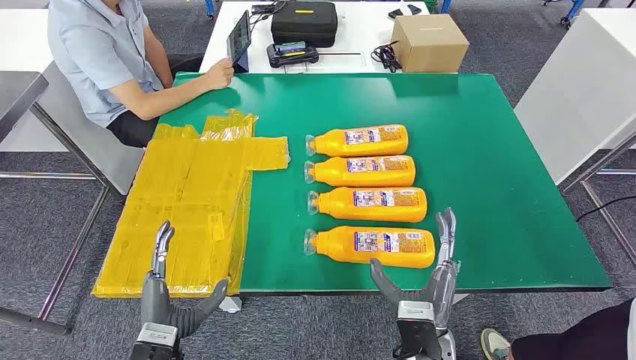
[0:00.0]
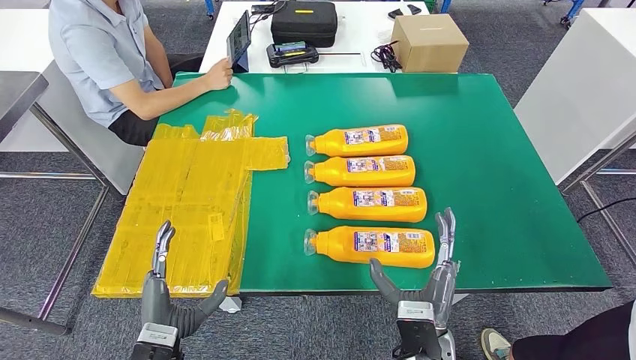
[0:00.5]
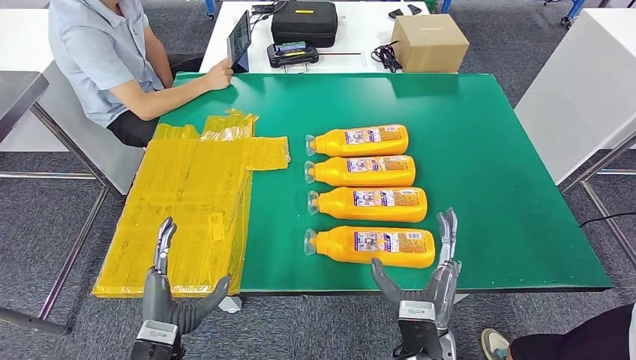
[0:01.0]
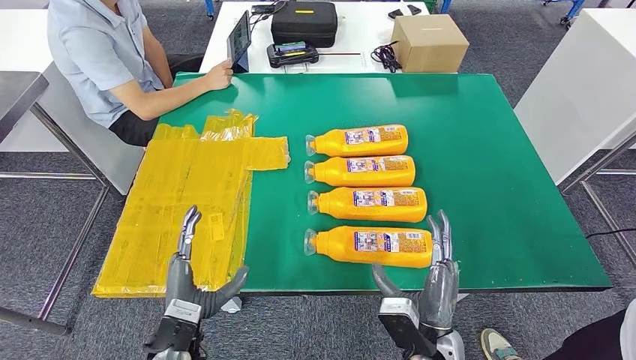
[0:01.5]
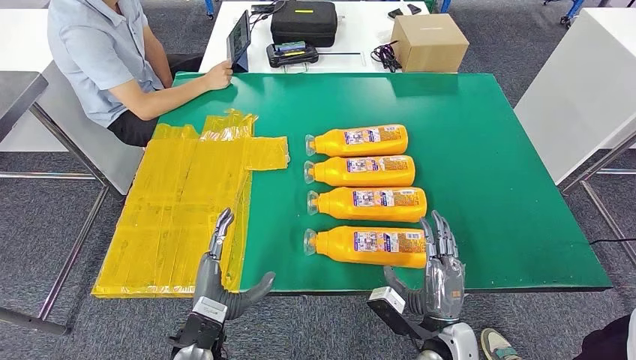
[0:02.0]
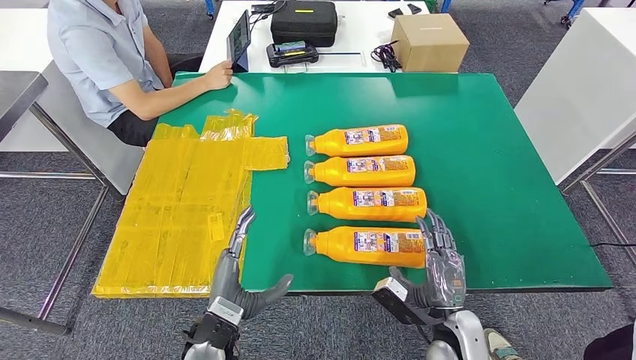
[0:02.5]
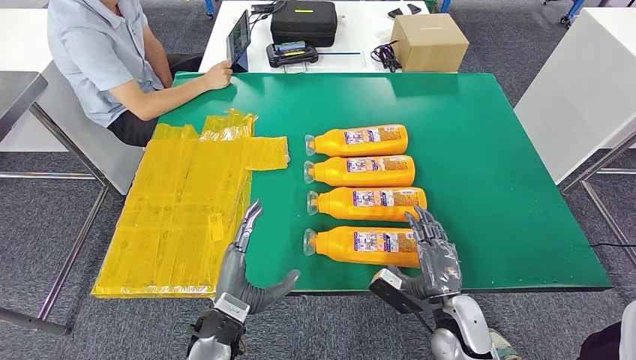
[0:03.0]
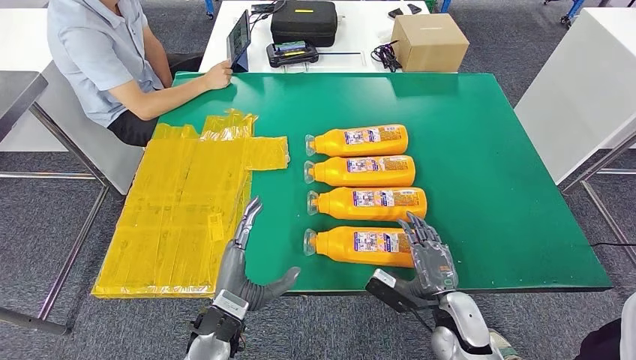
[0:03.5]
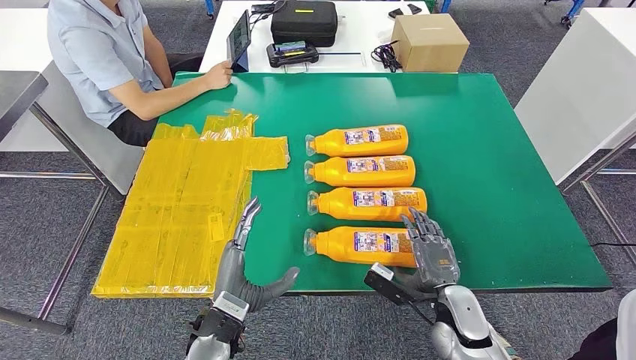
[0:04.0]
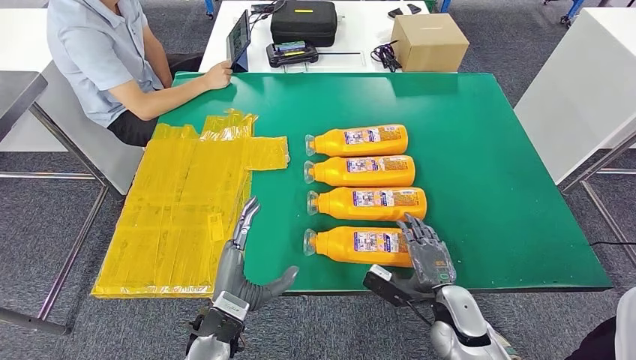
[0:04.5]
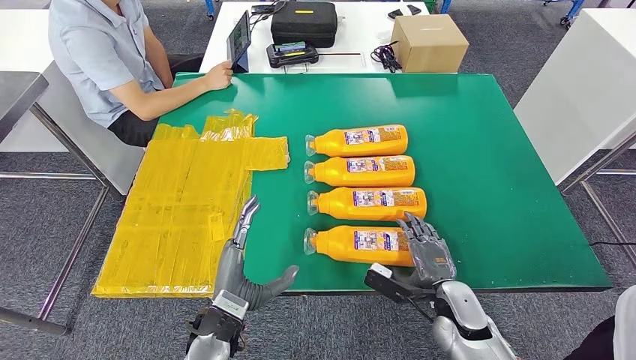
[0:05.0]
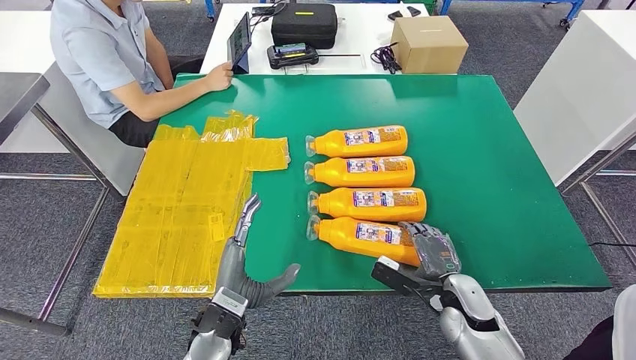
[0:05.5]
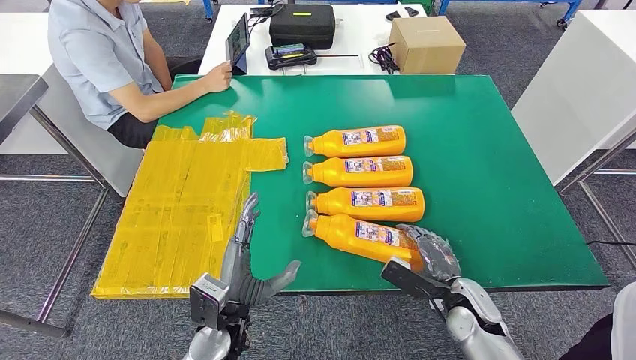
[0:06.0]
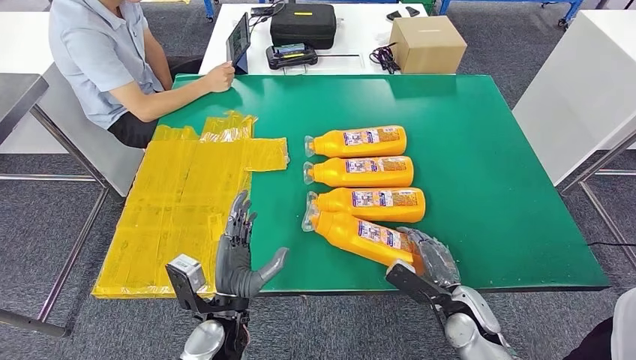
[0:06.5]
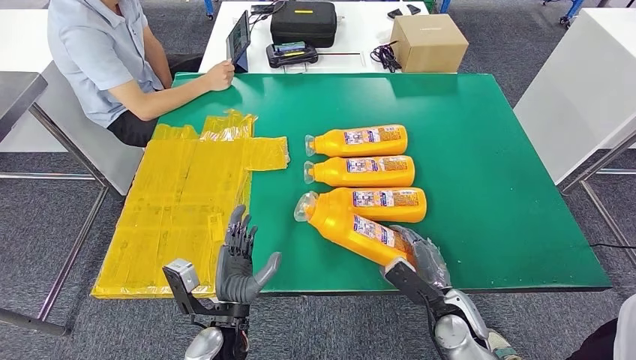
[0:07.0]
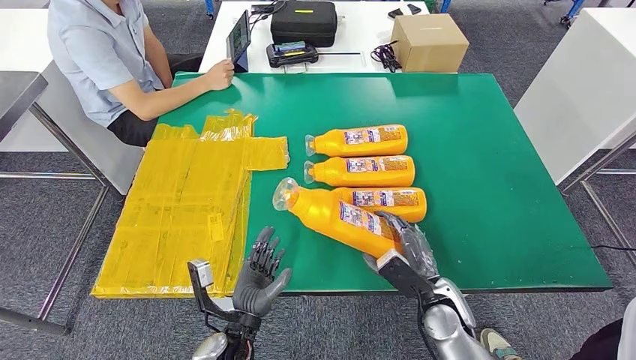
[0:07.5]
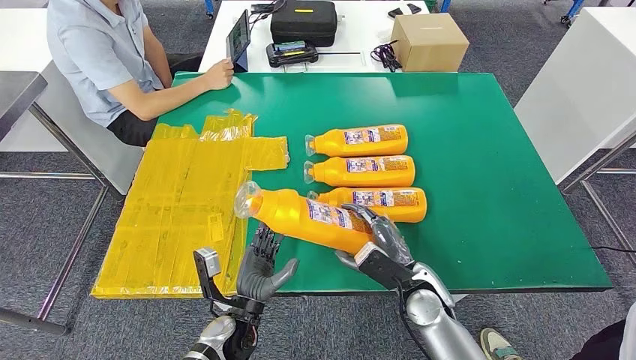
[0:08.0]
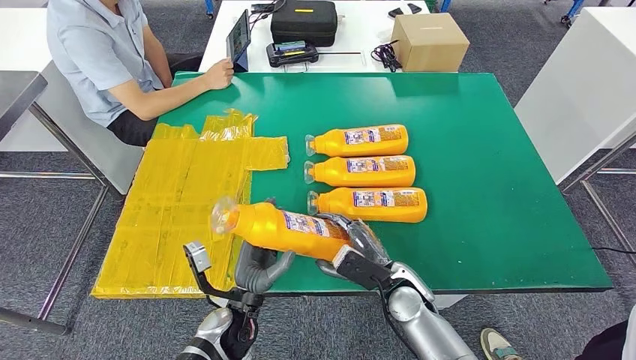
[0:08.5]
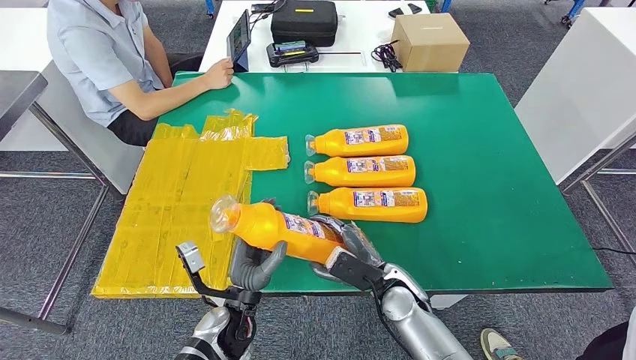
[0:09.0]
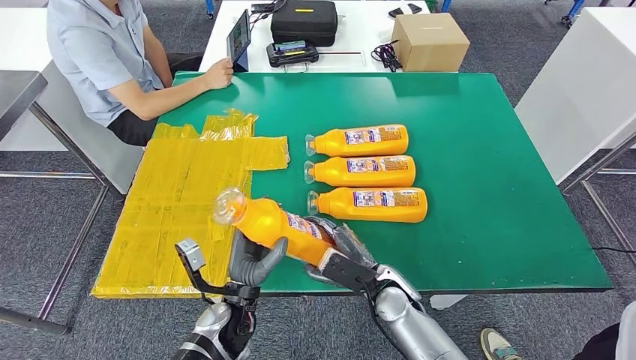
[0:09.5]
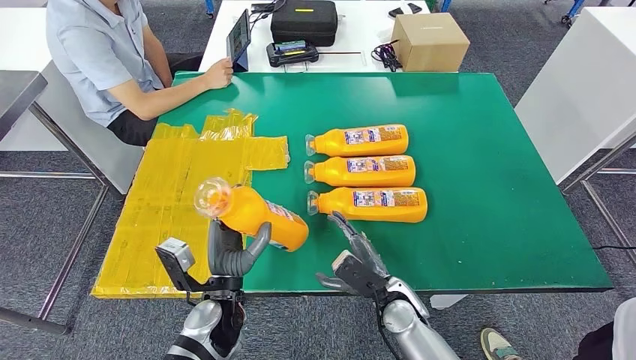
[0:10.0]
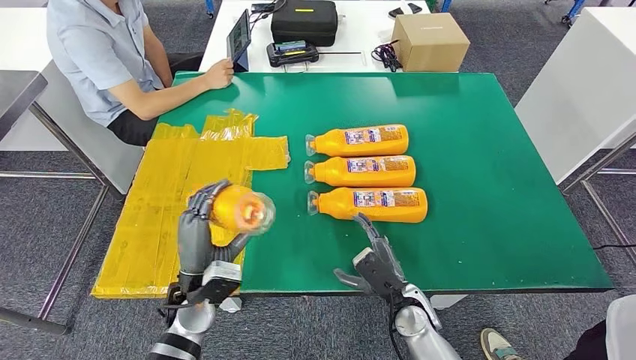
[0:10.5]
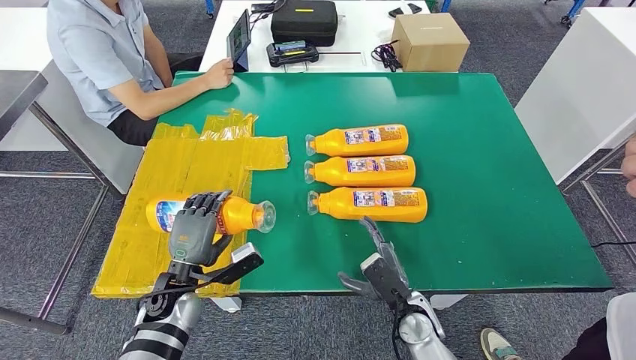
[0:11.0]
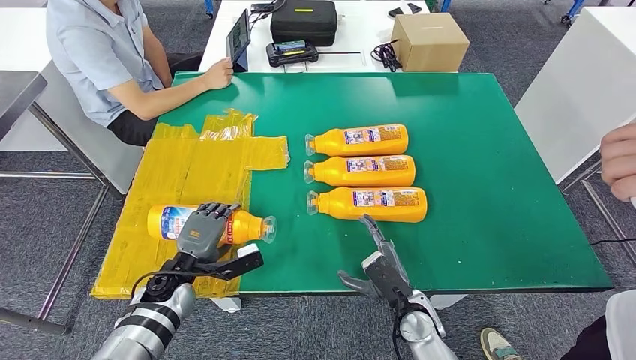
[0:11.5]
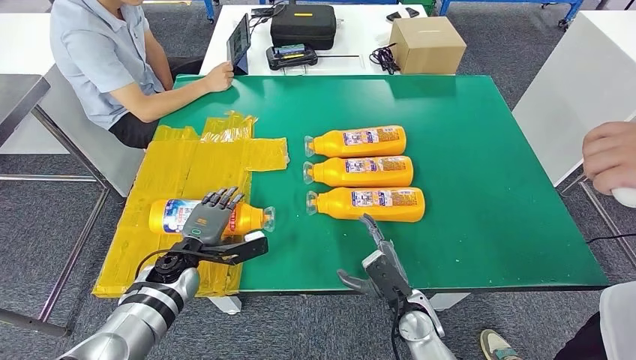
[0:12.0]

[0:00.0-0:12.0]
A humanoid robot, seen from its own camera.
Step, 0:00.0 to 0:09.0: Take the bottle from the table.
0:02.0 to 0:04.0: The right hand heads forward, covering some 5 cm.
0:06.0 to 0:08.0: The right hand is displaced to the left by roughly 10 cm; the left hand moves downward, some 5 cm.
0:08.0 to 0:10.0: The left hand moves upward, about 5 cm. The right hand moves some 5 cm.

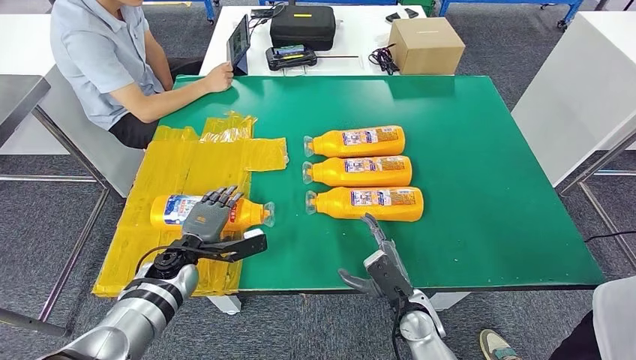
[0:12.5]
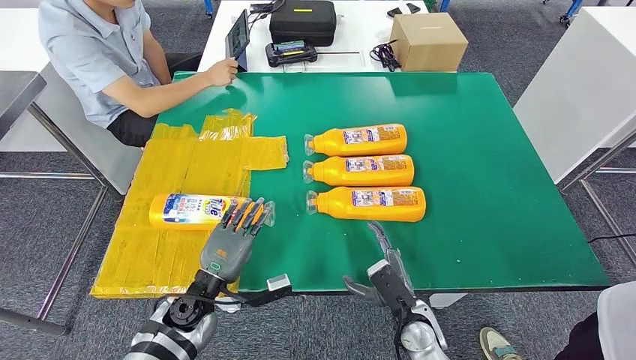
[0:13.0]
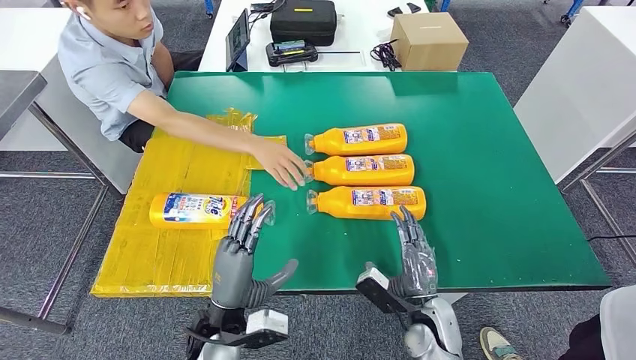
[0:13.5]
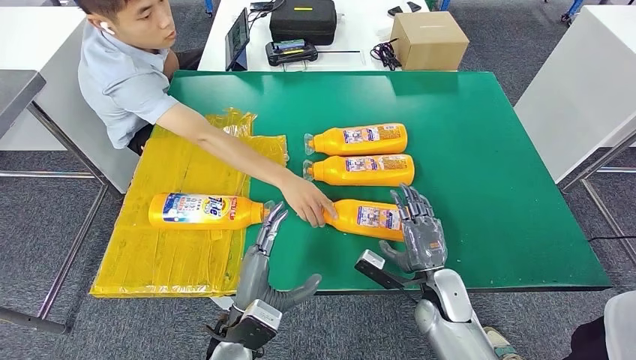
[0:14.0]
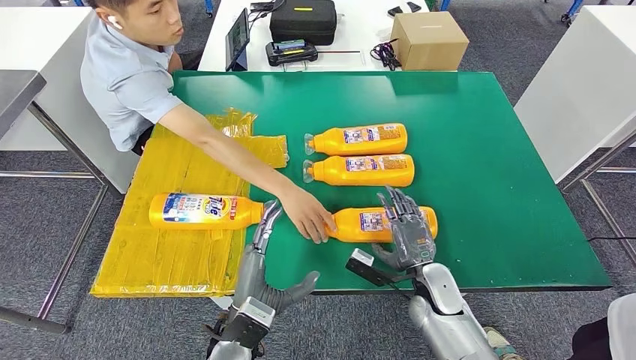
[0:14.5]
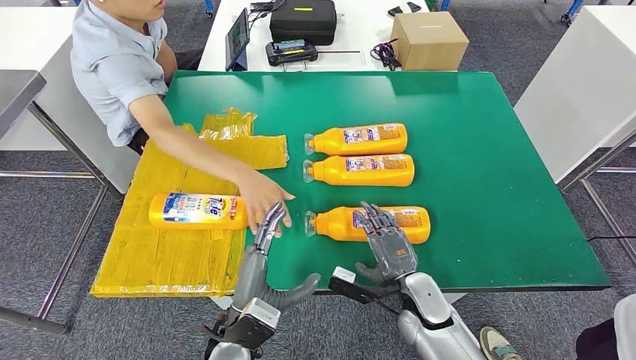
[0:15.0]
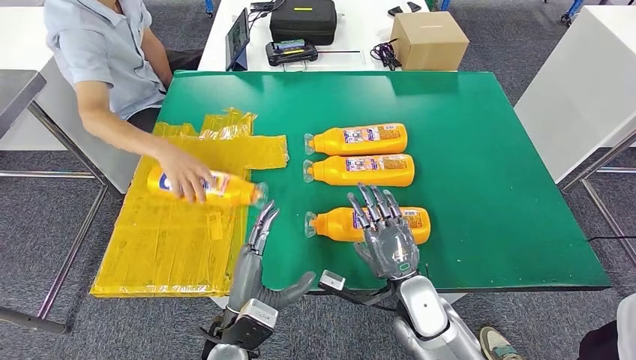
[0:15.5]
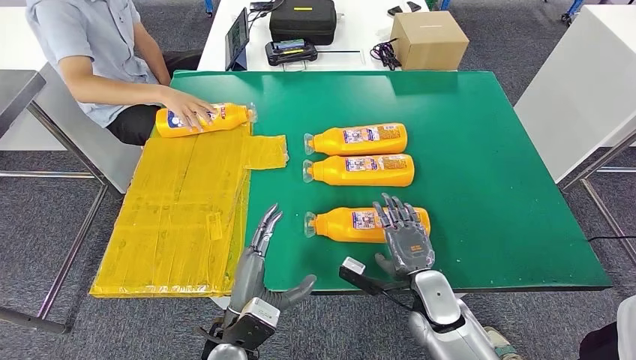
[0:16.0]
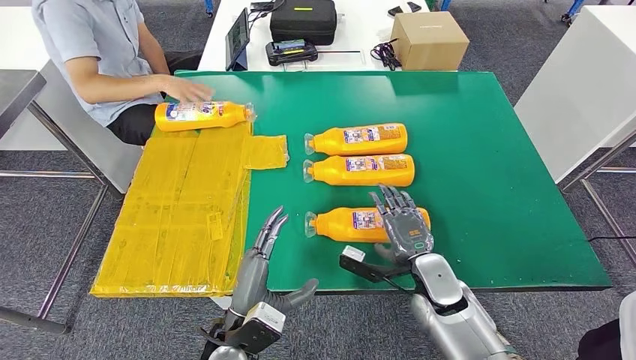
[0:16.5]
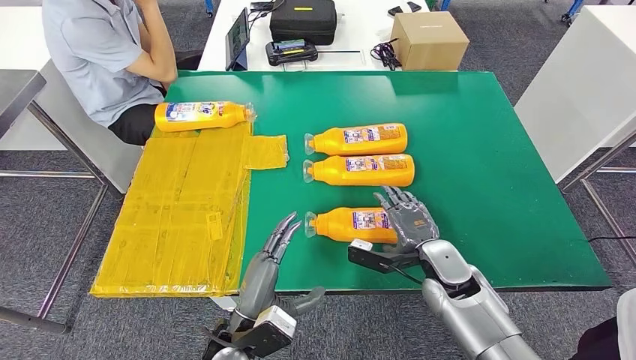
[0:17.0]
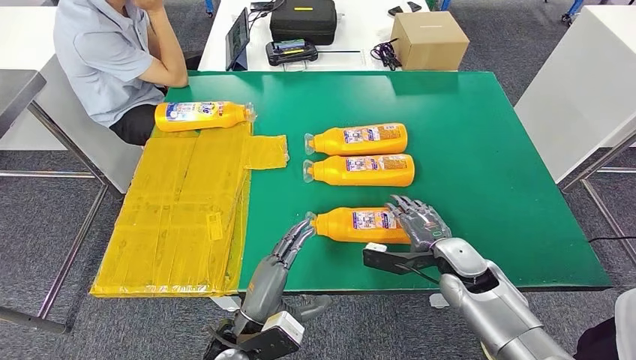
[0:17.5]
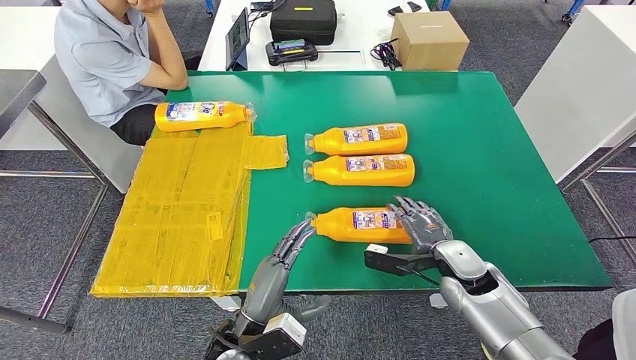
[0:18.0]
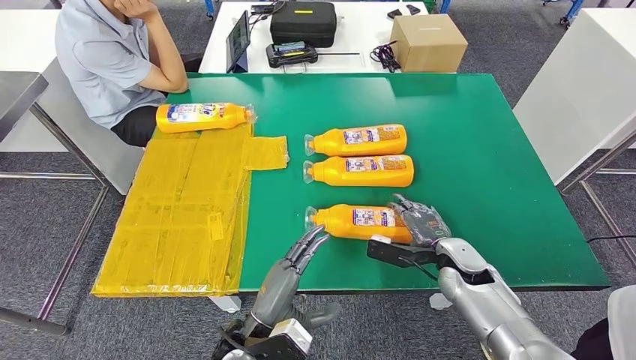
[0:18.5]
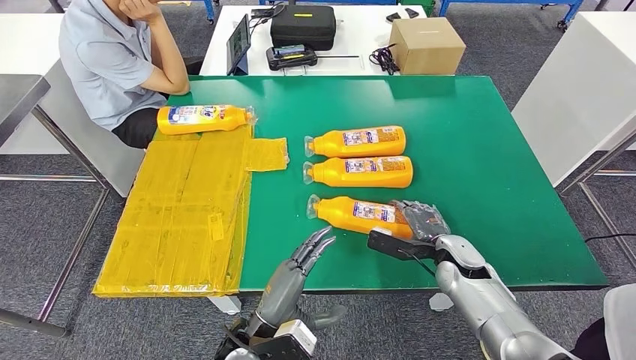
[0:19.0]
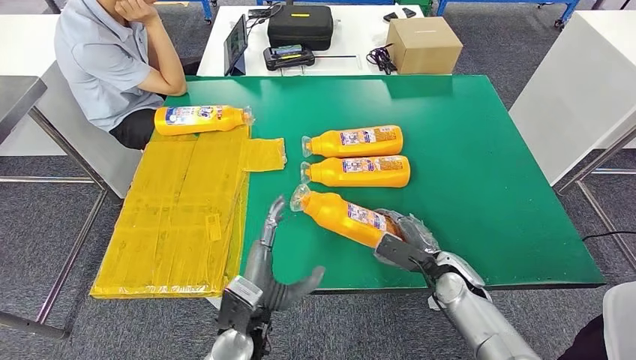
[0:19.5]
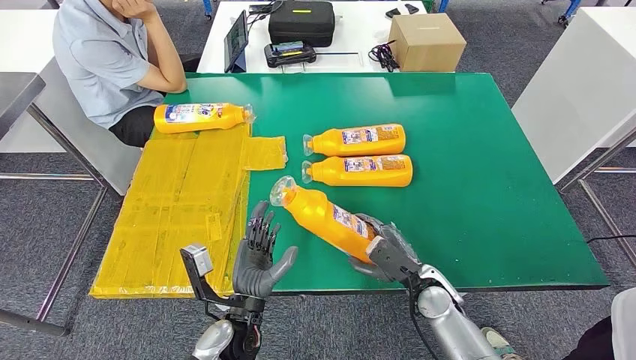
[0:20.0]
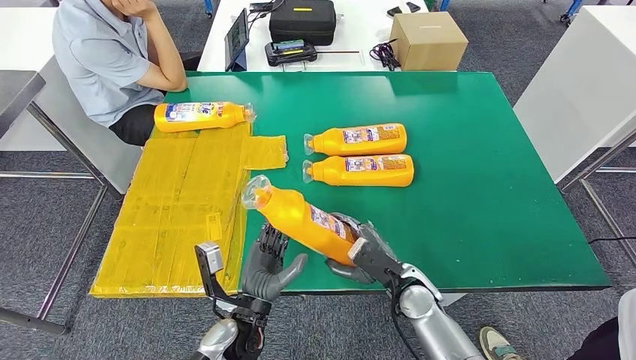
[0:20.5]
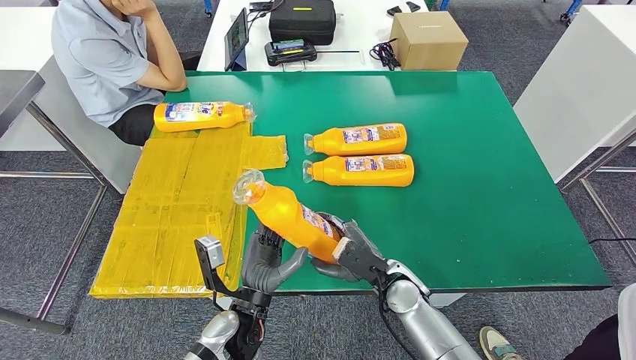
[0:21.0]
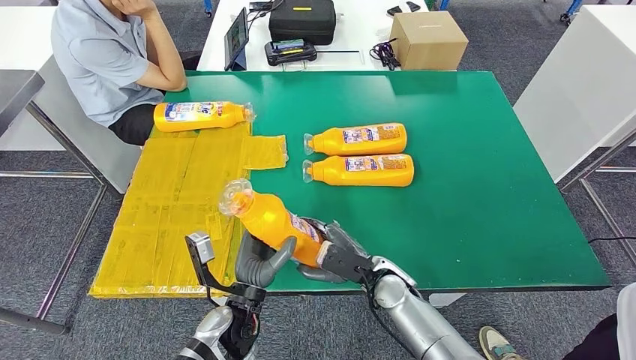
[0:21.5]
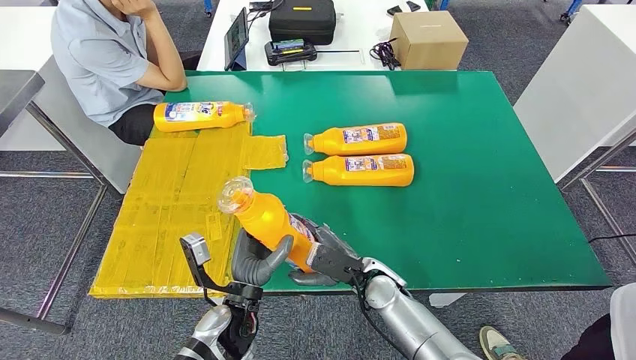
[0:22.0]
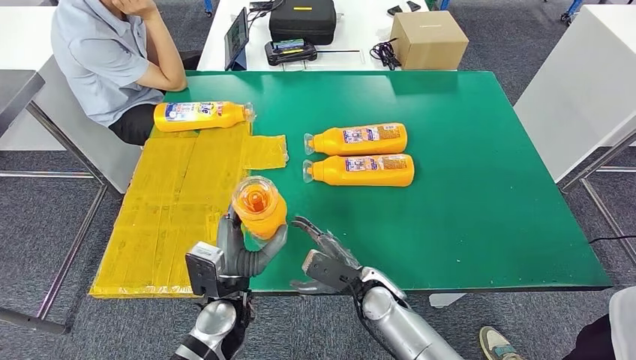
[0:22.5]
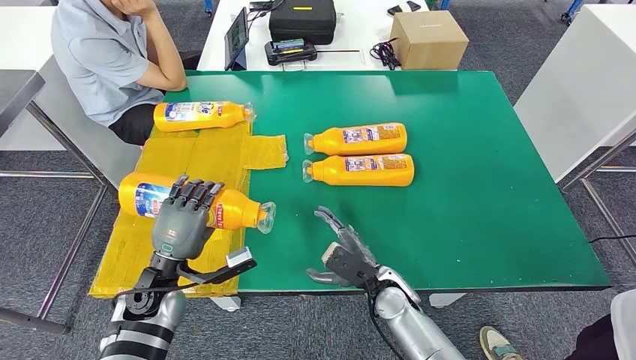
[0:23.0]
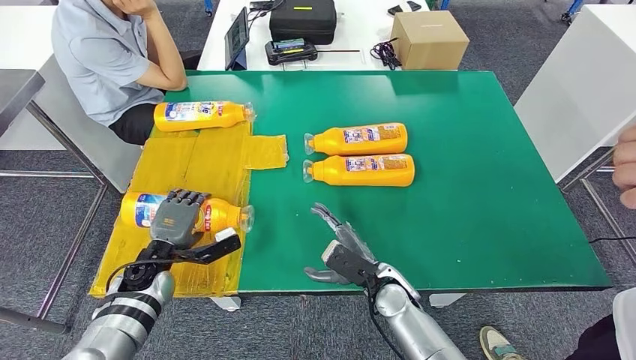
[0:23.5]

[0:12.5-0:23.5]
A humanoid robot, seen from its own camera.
Step, 0:13.0 to 0:20.5: Pick up the bottle from the table.
Step, 0:21.5 to 0:23.5: Flip the bottle to face forward.
0:16.0 to 0:18.0: The right hand heads to the right, covering some 5 cm.
0:18.0 to 0:20.0: The right hand changes place by about 5 cm.
0:20.0 to 0:21.5: The right hand moves to the left, about 10 cm.
0:21.5 to 0:23.5: The left hand heads to the left and forward, covering roughly 20 cm.
